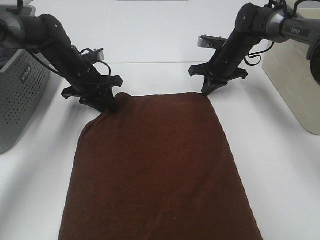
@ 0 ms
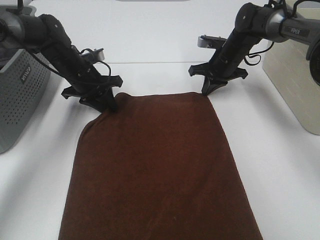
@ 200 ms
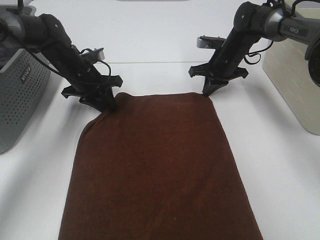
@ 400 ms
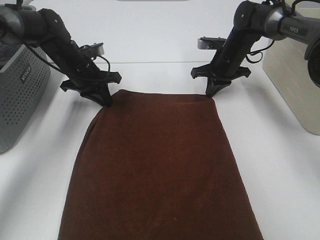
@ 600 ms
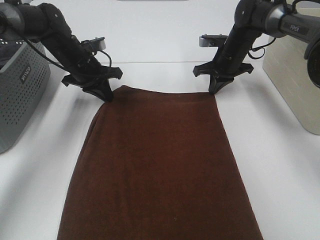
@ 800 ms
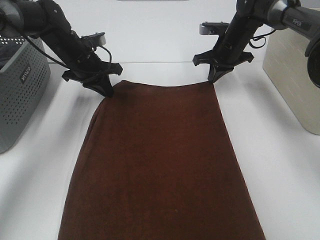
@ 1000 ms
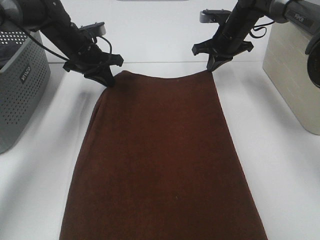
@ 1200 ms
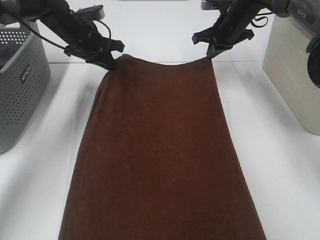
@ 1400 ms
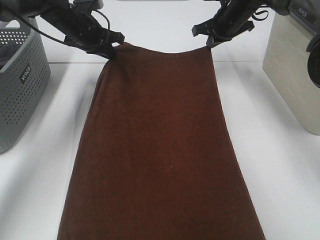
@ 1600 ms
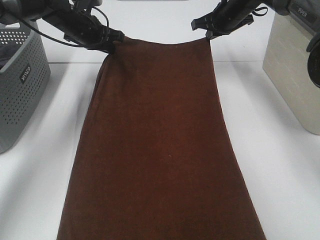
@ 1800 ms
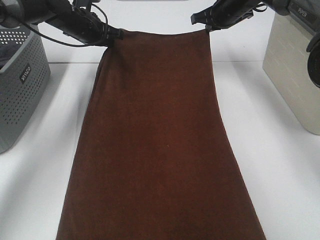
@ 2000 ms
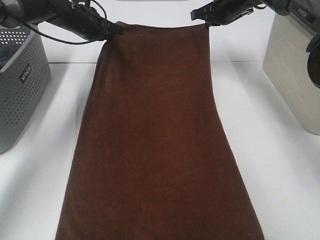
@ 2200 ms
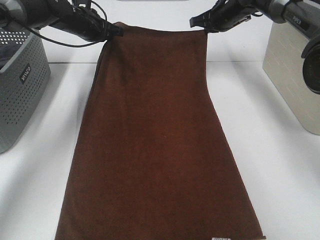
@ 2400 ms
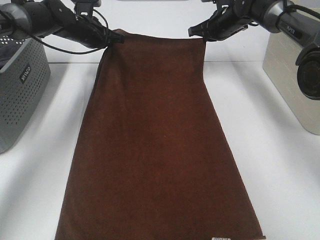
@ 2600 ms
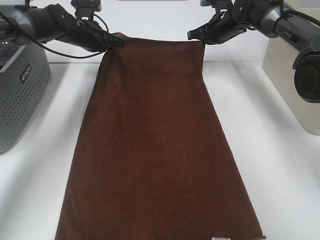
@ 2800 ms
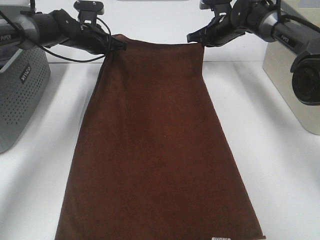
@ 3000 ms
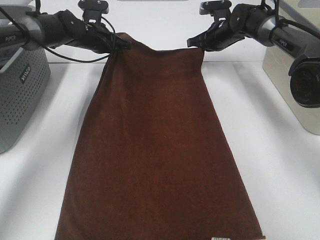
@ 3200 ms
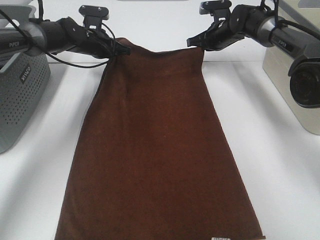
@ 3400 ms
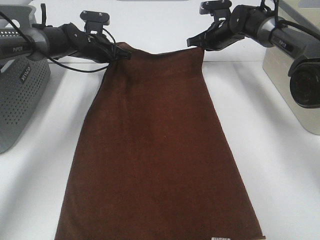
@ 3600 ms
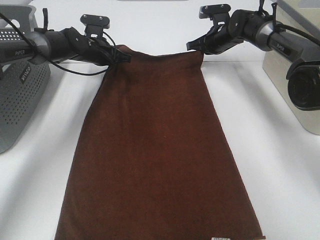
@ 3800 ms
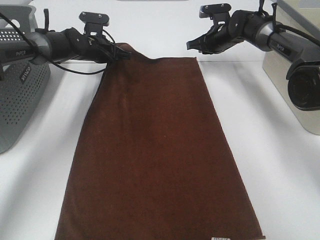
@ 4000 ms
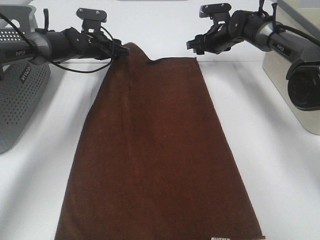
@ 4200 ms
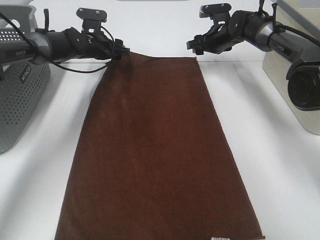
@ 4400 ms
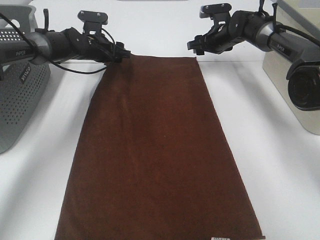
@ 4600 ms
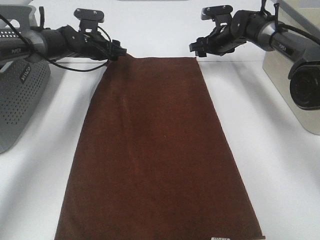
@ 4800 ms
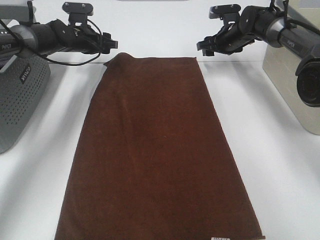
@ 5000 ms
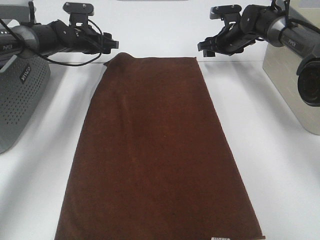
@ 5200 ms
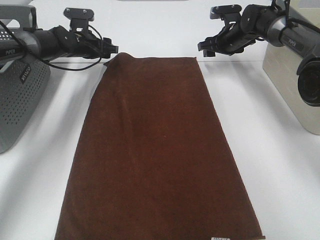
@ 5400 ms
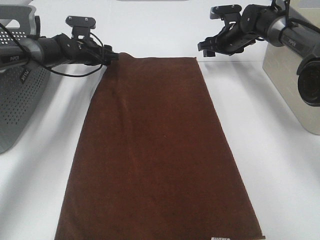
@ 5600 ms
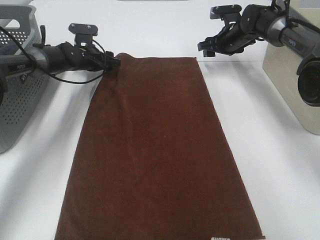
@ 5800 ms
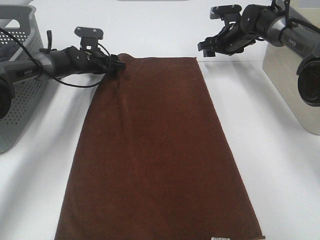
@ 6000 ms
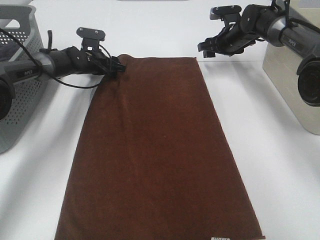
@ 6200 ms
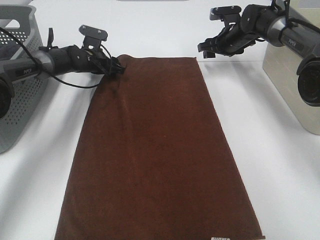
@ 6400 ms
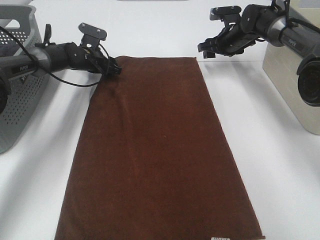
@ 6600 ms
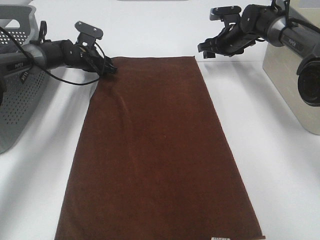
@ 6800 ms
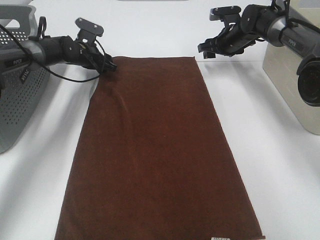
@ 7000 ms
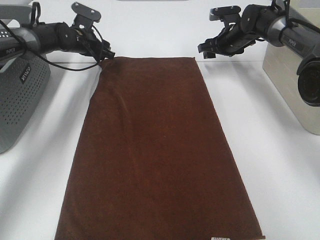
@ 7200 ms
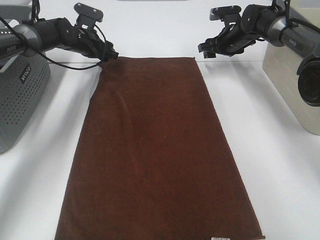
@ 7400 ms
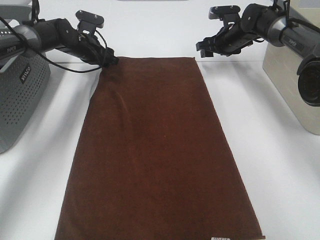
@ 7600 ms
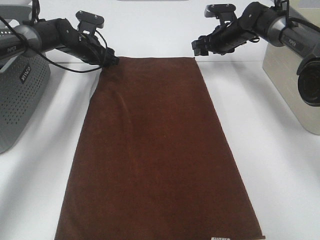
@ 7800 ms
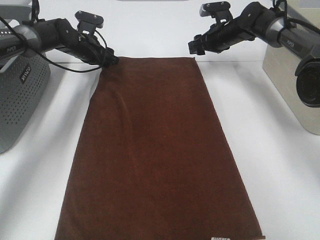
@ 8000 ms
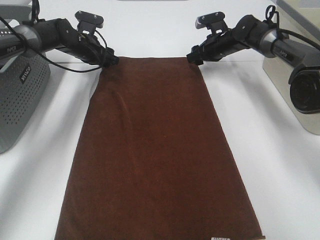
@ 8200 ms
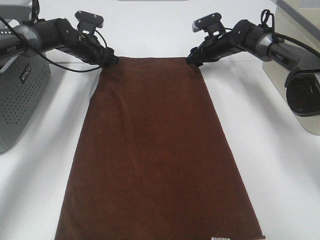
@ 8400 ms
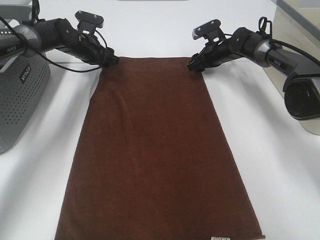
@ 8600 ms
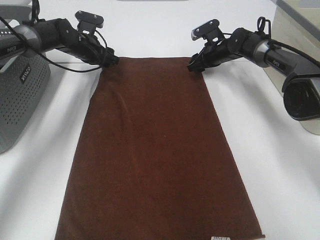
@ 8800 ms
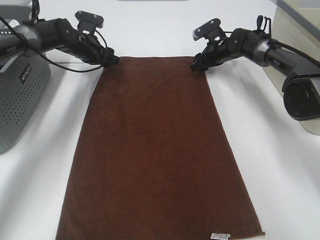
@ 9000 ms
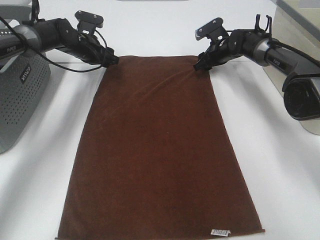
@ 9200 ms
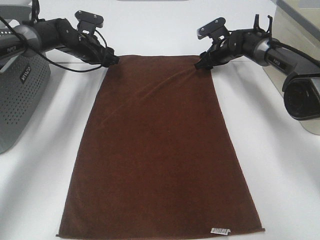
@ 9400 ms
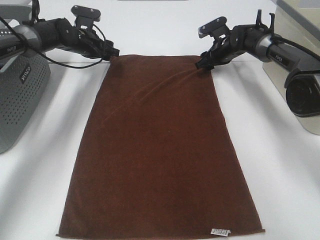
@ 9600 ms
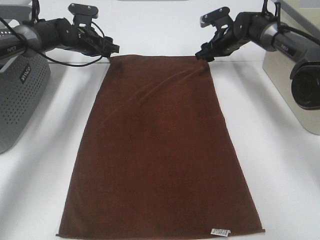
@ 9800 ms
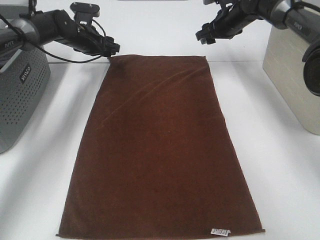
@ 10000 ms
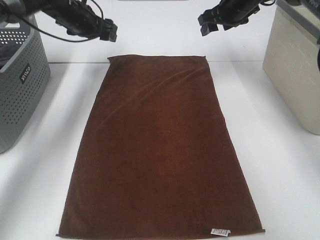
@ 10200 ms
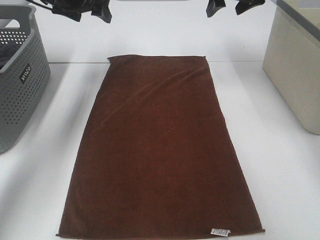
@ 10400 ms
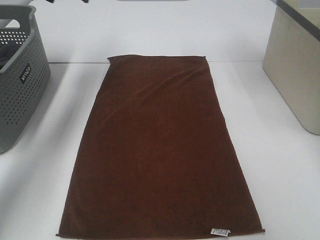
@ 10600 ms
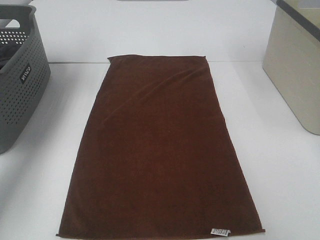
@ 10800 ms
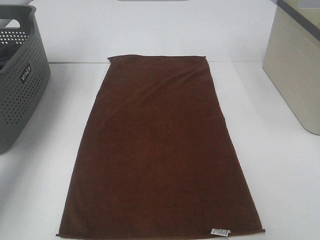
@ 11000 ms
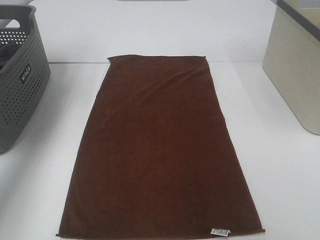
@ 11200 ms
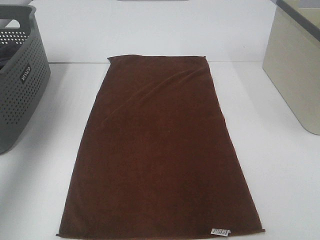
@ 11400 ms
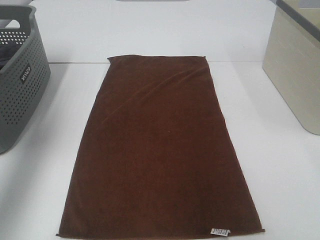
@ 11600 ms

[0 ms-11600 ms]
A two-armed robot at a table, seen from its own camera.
Task of the whole recording: Remove the towel and place it.
Step, 0 ms to 2200 ms: Right hand:adjust the brown towel.
0 ms to 1400 ms: Both grippers travel together upward, roughly 10 cm.
1400 ms to 2800 ms: The left gripper shifts by some 5 cm.
2800 ms to 4400 ms: The right gripper opens up. Meanwhile the left gripper opens.
4400 ms to 5800 ms: The left gripper ends up about 5 cm from where it was.
5800 ms to 7200 ms: The left gripper moves upward, approximately 5 cm.
7200 ms to 8800 ms: The right gripper shifts by some 5 cm.
8800 ms to 10200 ms: The right gripper is displaced upward by some 15 cm, while the left gripper moves upward, about 10 cm.
10200 ms to 11600 ms: The right gripper travels backward and upward by roughly 40 cm, while the left gripper is displaced backward, upward and to the left by approximately 35 cm.

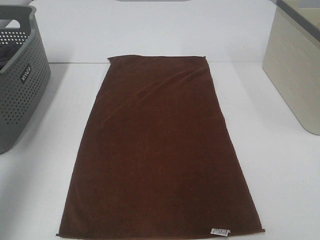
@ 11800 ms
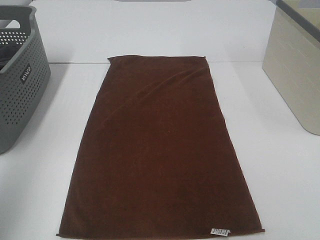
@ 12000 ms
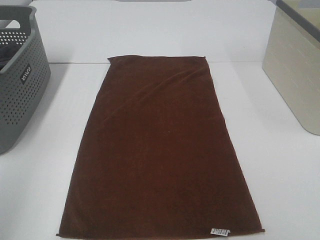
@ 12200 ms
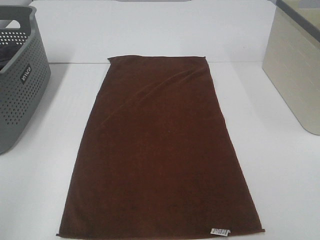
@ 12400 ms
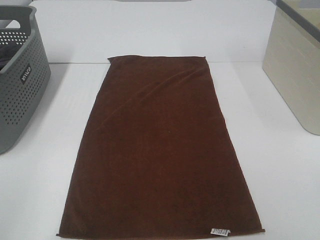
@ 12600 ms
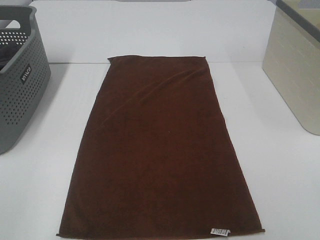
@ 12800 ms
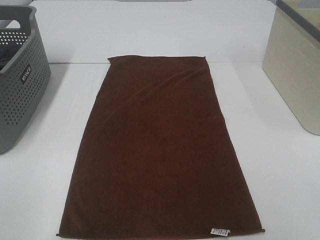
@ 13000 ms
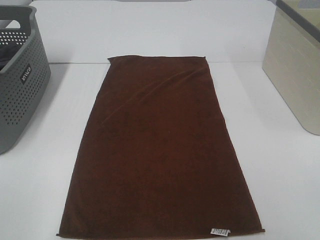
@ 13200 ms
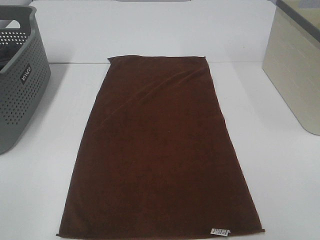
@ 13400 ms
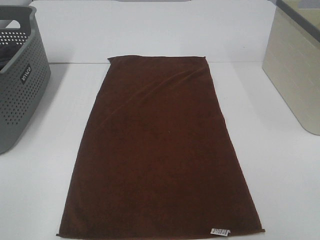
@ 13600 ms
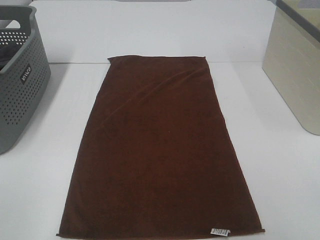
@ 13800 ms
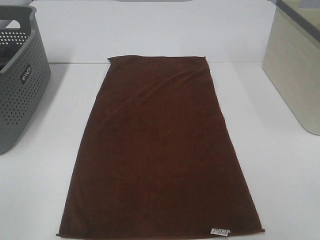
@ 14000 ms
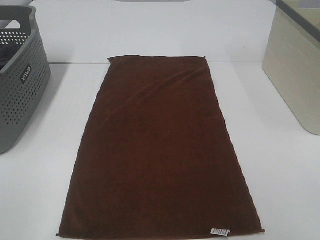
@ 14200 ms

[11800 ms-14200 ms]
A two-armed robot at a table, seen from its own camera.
Task of the whole recording: Remove the towel and place it.
11800 ms to 13000 ms: The left gripper moves backward and downward, approximately 25 cm.
13000 ms to 14200 ms: The two grippers keep their place.

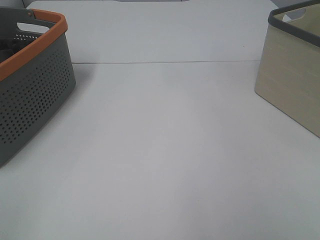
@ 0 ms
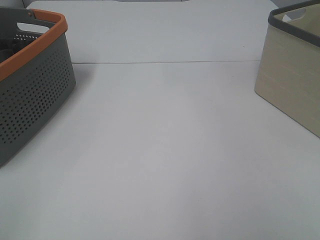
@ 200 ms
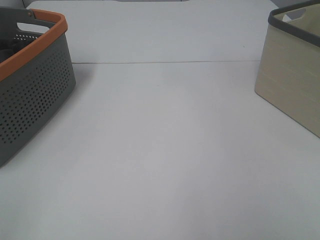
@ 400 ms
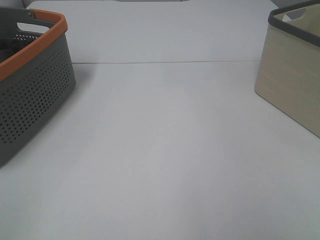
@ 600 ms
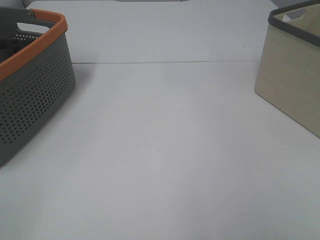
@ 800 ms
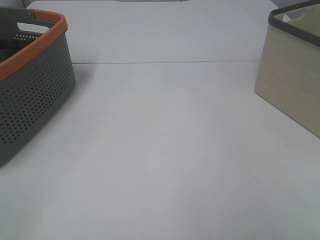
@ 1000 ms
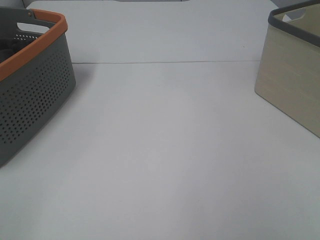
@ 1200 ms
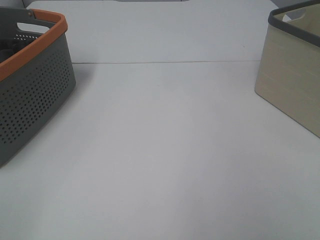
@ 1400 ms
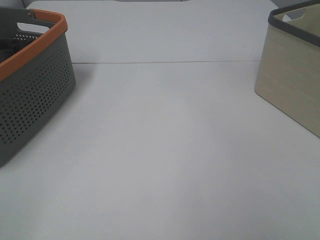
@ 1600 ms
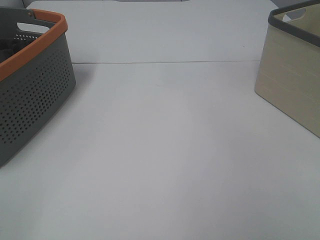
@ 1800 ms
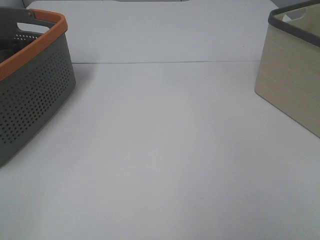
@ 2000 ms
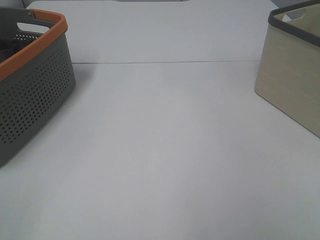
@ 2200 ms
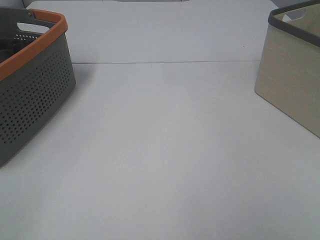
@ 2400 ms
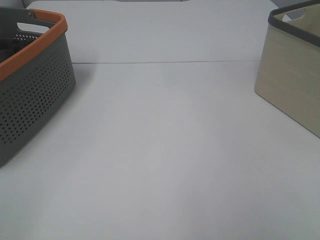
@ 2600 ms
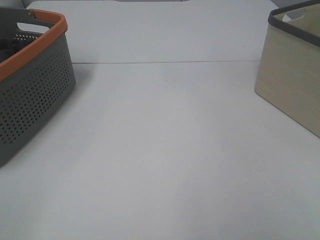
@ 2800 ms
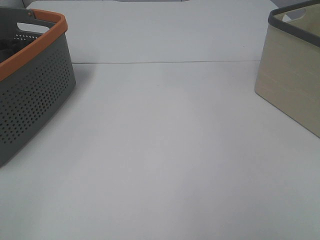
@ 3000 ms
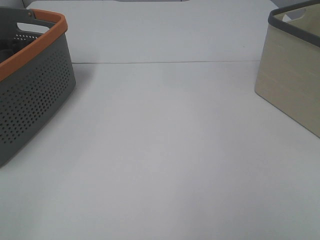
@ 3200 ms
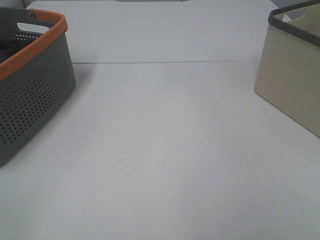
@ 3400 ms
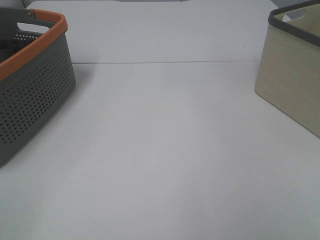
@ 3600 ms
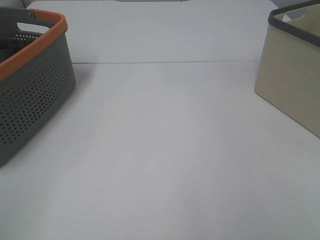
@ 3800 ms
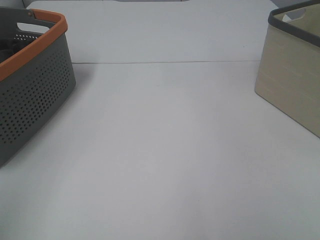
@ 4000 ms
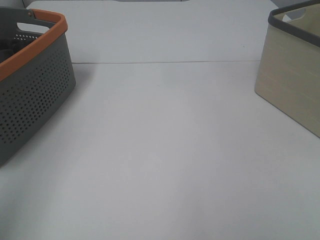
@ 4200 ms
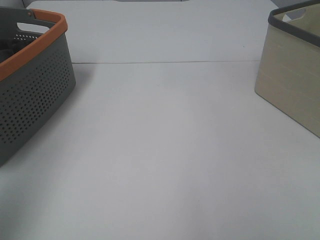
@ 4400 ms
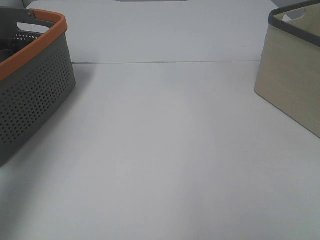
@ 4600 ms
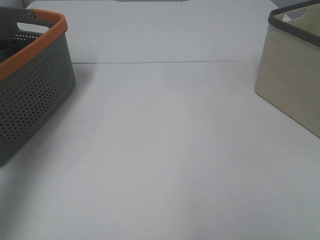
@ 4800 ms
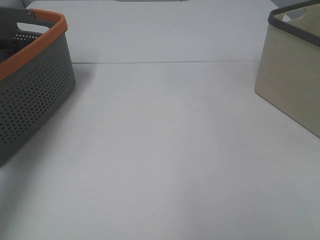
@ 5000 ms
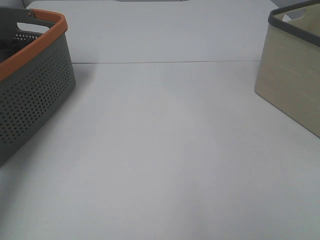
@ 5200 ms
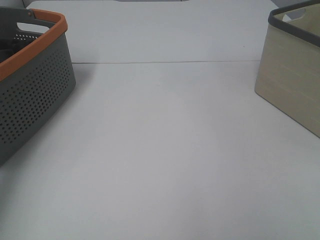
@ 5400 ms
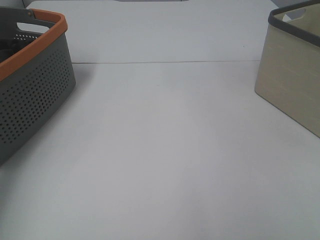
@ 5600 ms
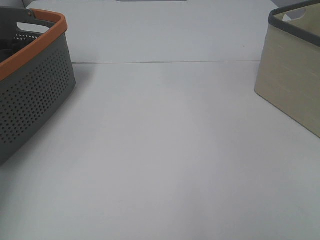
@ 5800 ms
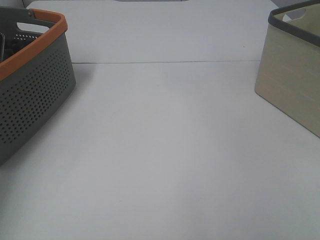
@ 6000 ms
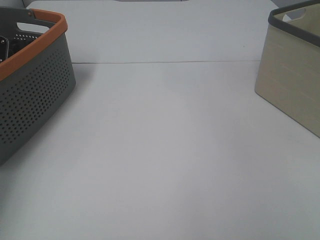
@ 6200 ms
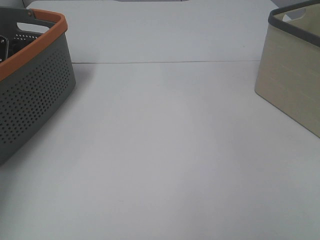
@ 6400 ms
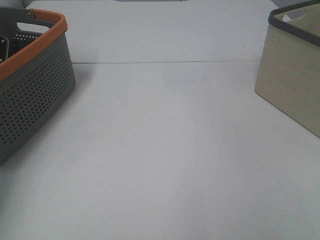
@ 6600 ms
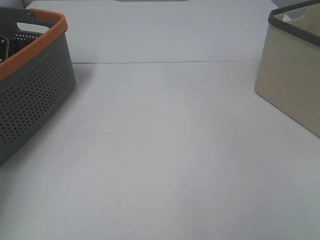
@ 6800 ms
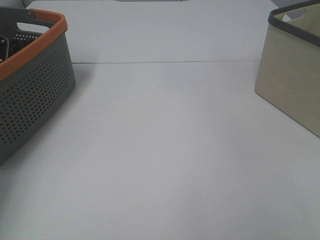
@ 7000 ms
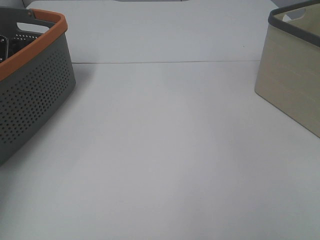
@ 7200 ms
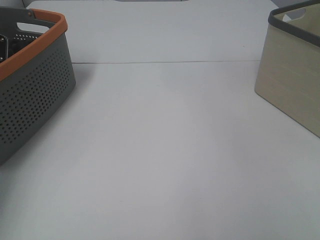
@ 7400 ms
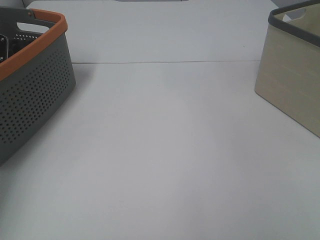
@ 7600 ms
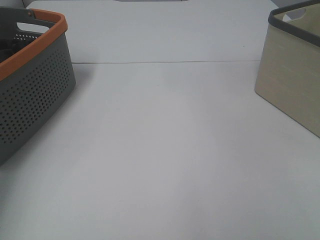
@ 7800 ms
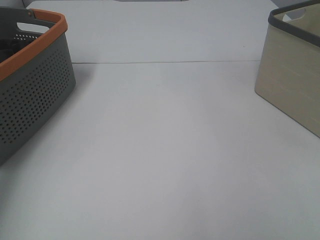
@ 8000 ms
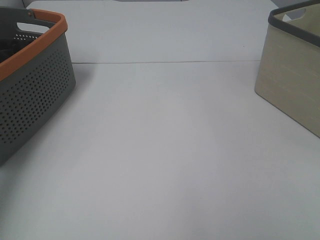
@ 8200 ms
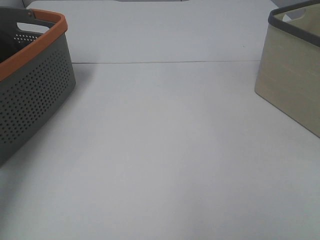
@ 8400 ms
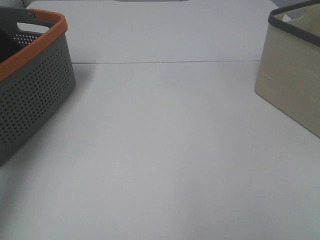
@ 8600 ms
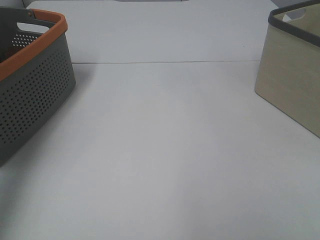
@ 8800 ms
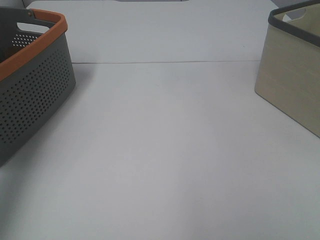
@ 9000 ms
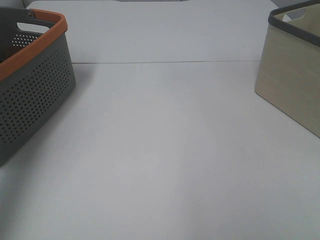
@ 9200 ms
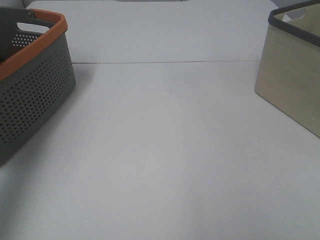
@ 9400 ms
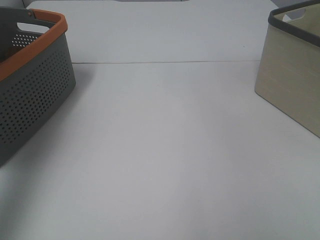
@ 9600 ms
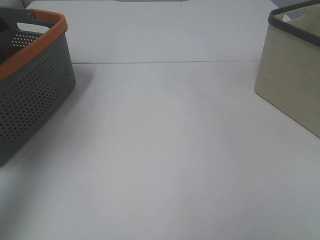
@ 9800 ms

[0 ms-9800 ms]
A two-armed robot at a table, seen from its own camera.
Task of the whole recording: Remove the towel and place it.
0 ms to 2800 ms: Both grippers stay put.
2800 ms to 4200 ms: The left gripper heads upward and forward, covering roughly 15 cm.
4200 ms to 5600 ms: The left gripper shifts some 35 cm forward and downward.
8400 ms to 9800 ms: The left gripper goes some 20 cm upward and backward.
